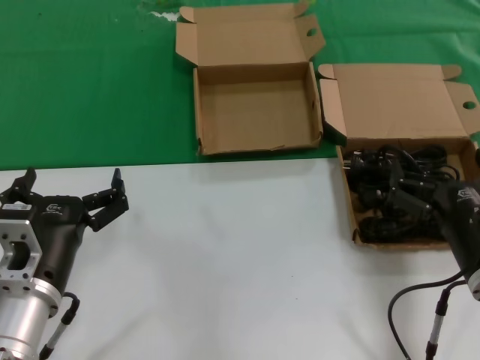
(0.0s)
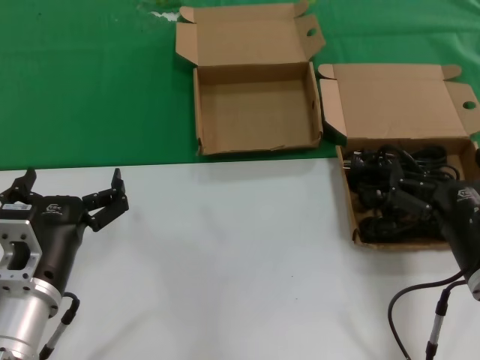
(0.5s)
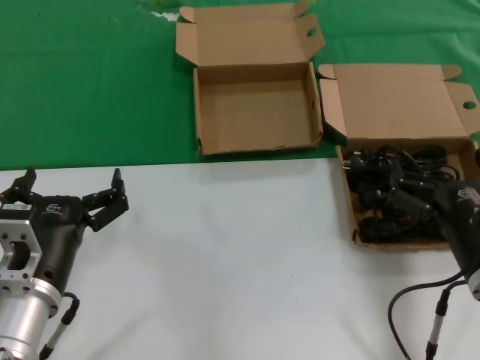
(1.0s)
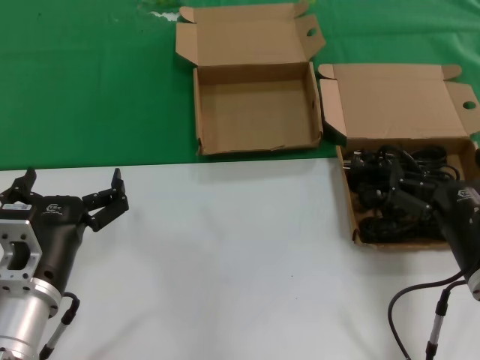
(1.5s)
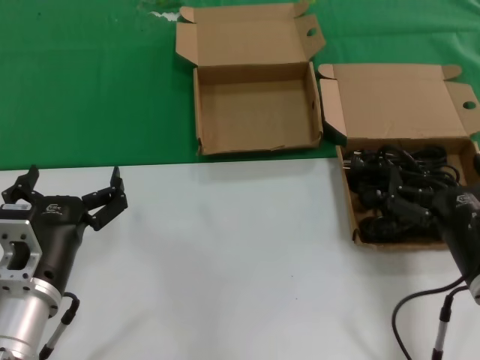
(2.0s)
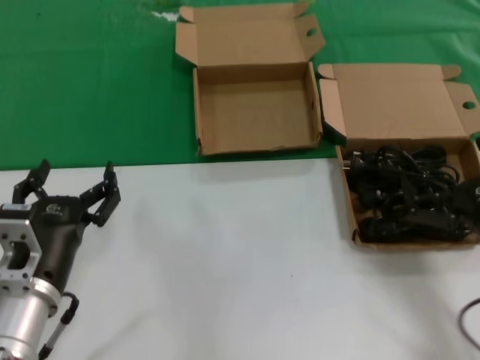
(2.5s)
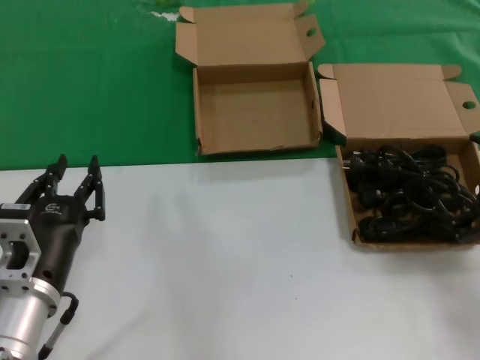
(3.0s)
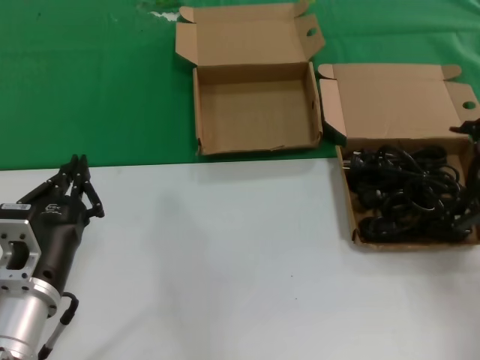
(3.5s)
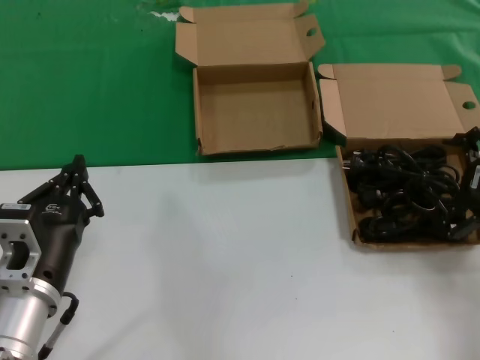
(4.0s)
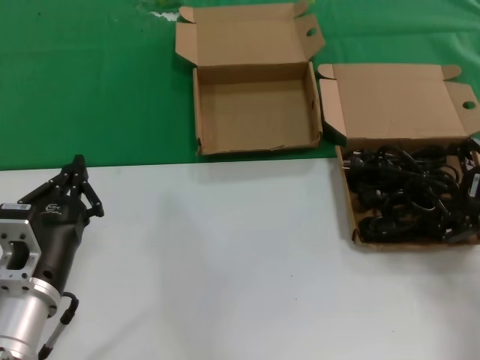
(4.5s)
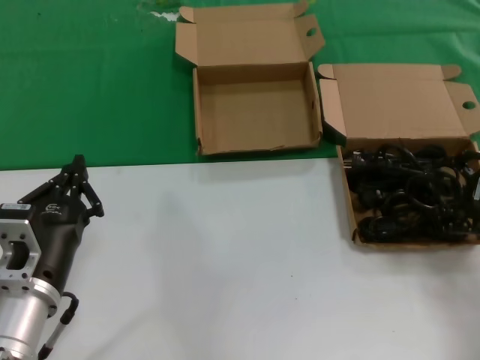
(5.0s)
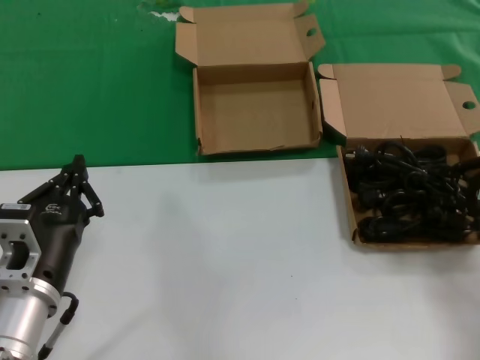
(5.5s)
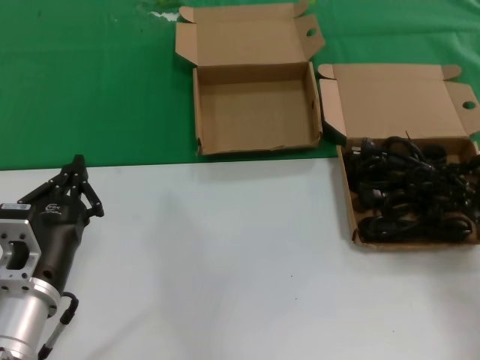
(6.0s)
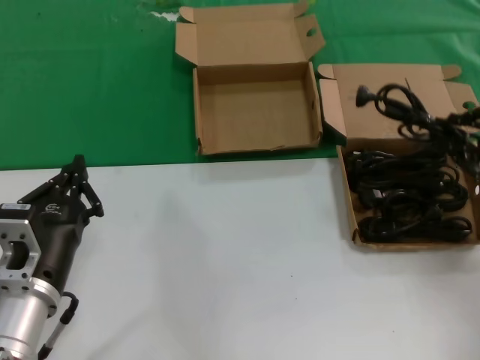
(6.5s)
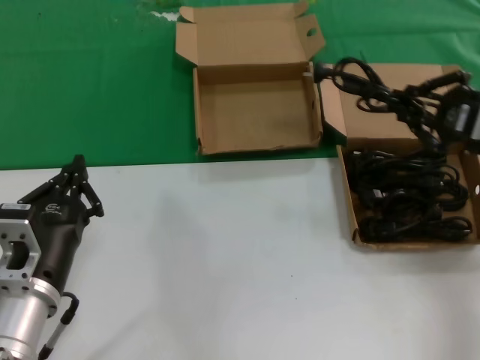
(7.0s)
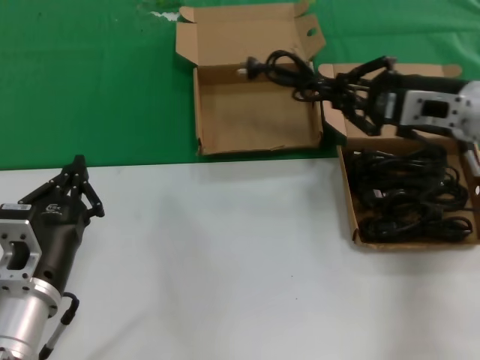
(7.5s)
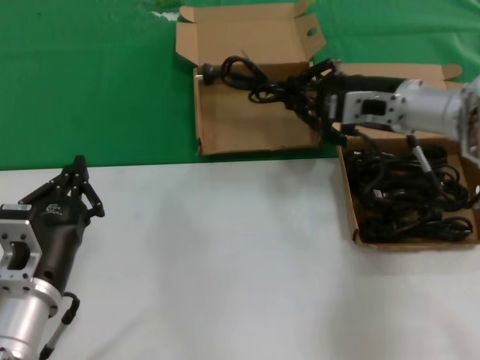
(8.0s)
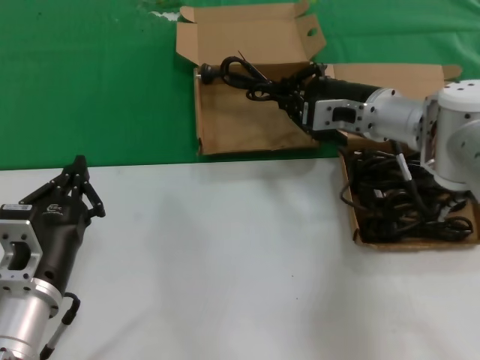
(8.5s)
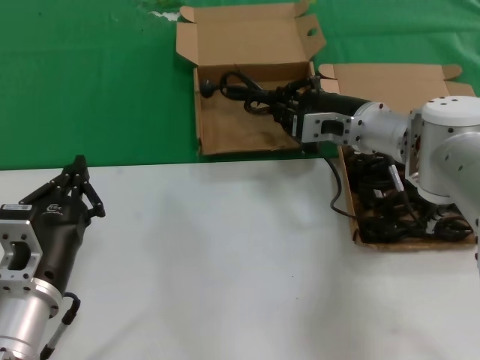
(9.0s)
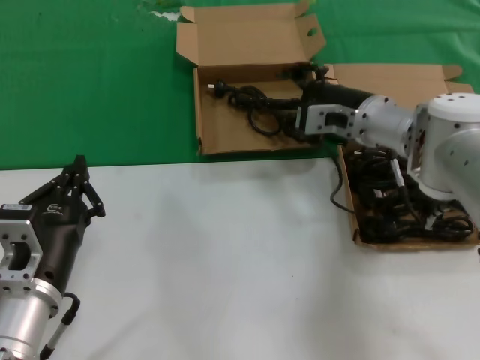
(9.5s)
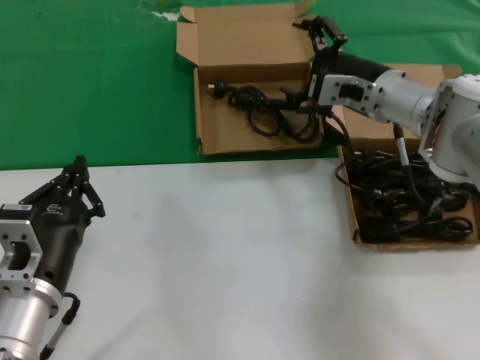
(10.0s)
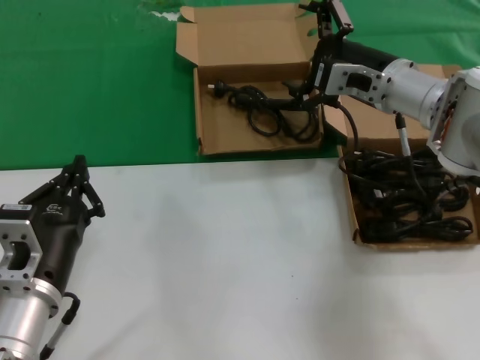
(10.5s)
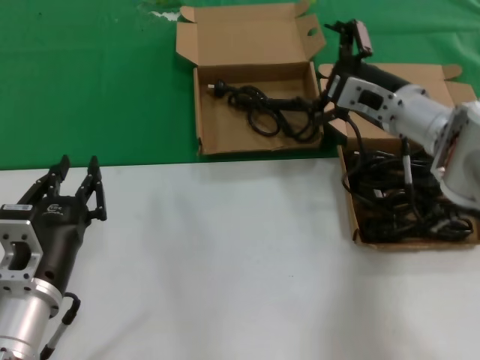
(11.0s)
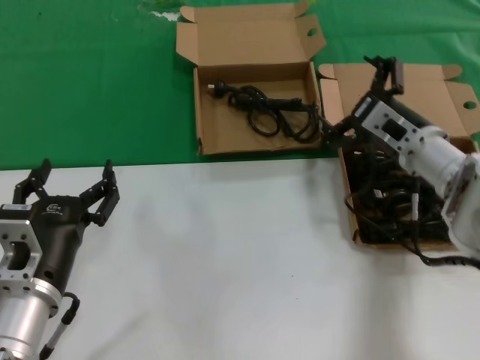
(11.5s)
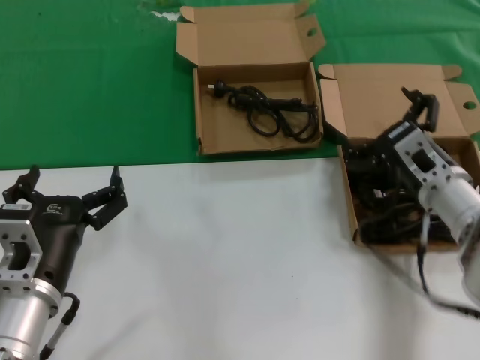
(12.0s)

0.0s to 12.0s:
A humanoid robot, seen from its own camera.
Task of the whole recording: take the parts from the box containing them and put them into an empty box.
Step, 0.0s to 5.5s: Grasp the data cable.
Step, 6.0s to 9.0s: Place the data cable in the another box.
0.0s to 2.0s: Both hands stay put.
2.0s to 4.0s: The right hand goes roughly 20 cm to the right, forward and upward.
4.0s to 6.0s: The hands make only small movements.
6.0s to 8.0s: The right hand moves to the left and forward, about 20 cm.
10.0s to 12.0s: The right hand shifts about 15 cm downward, backward and to the right.

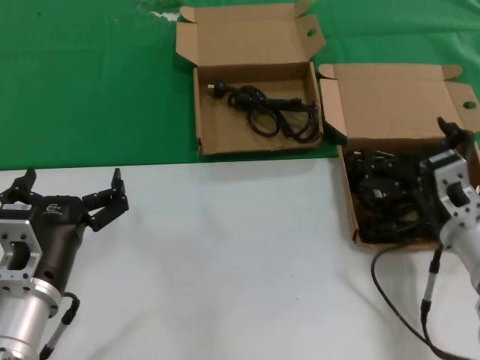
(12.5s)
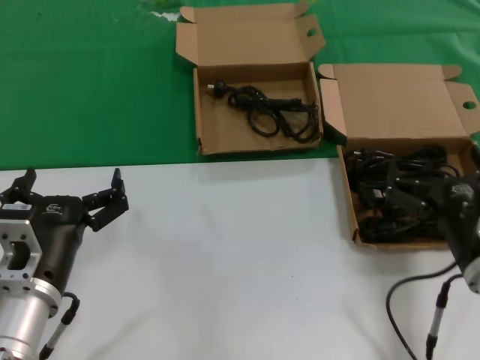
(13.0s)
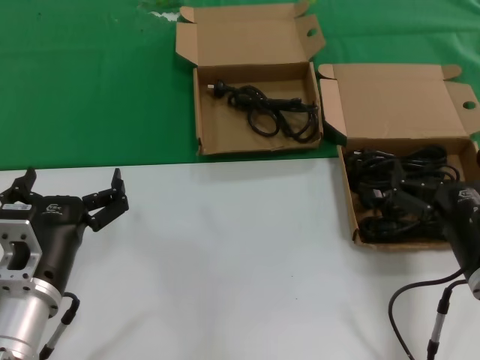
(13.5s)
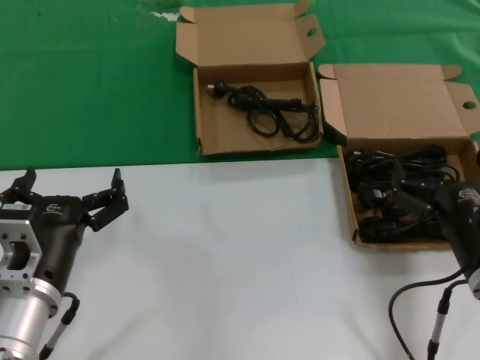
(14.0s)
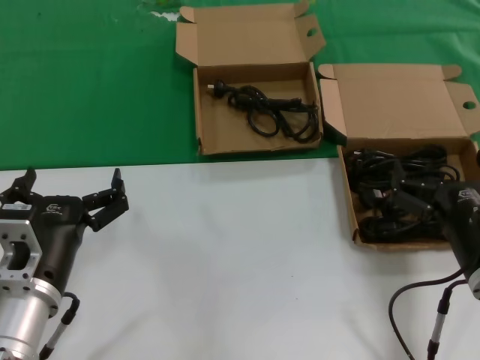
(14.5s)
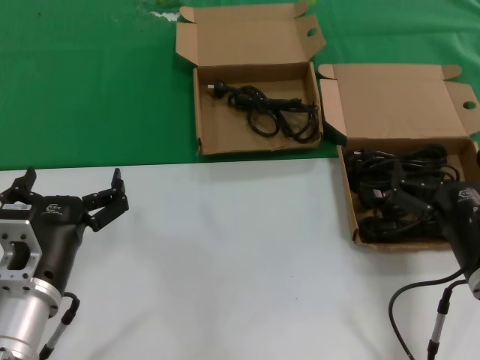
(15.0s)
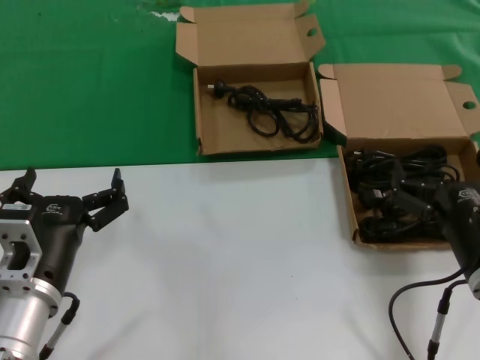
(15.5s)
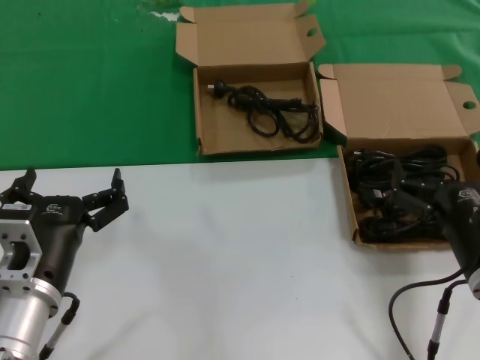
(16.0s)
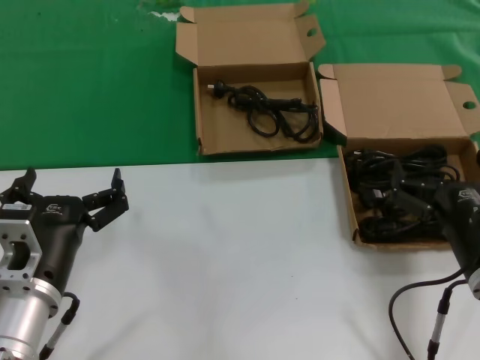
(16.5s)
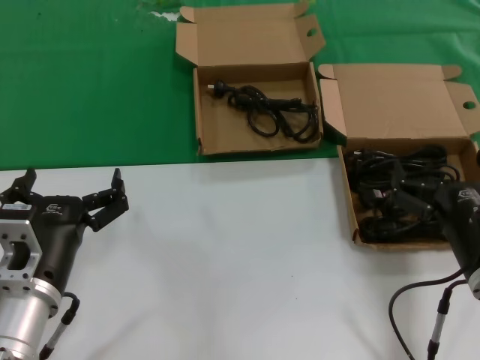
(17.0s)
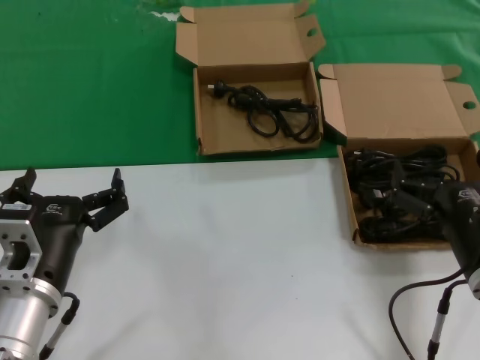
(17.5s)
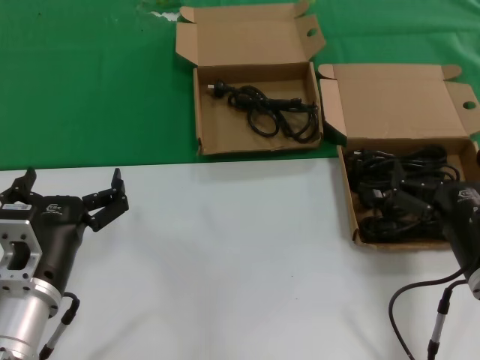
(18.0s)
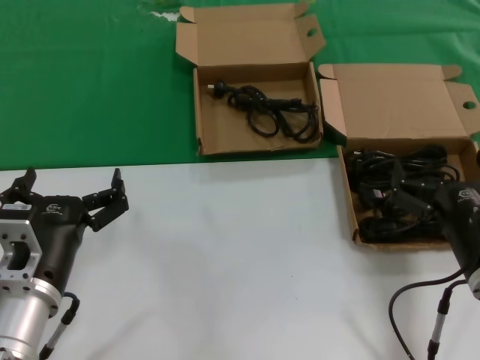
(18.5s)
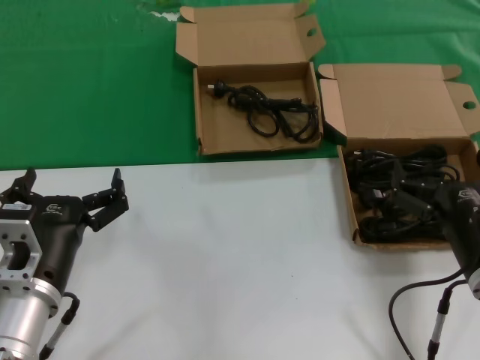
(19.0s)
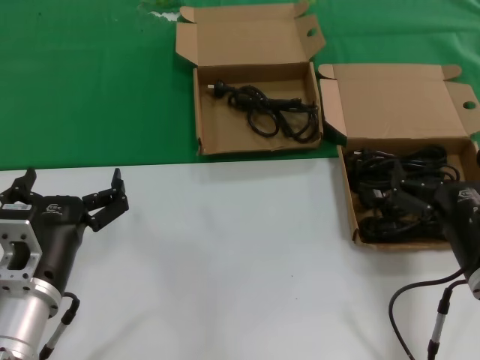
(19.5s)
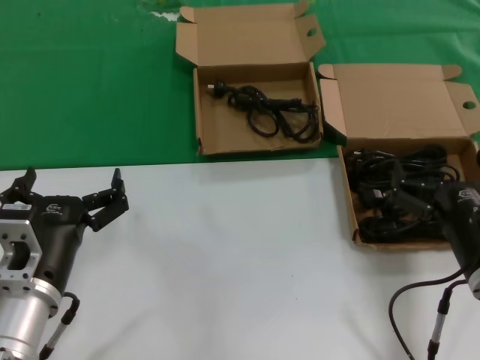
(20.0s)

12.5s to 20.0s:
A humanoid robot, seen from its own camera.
Task of the whole recording: take the parts from the box containing them and put them into an empty box.
12.5s to 14.5s: The right hand is displaced backward by approximately 10 cm.
14.5s to 20.0s: The two hands keep their place.

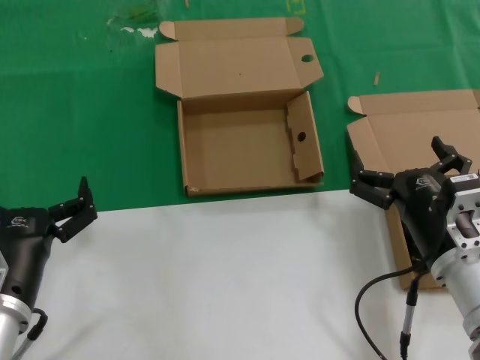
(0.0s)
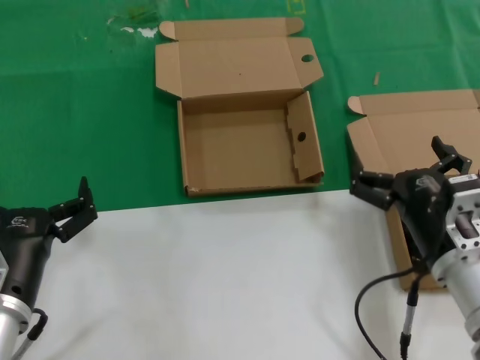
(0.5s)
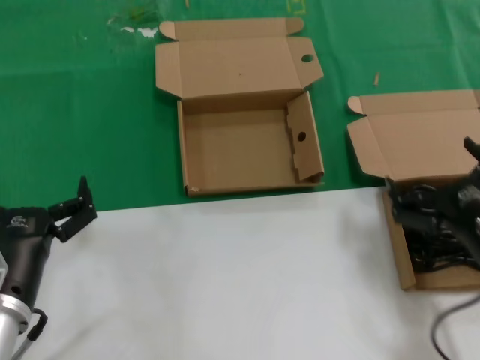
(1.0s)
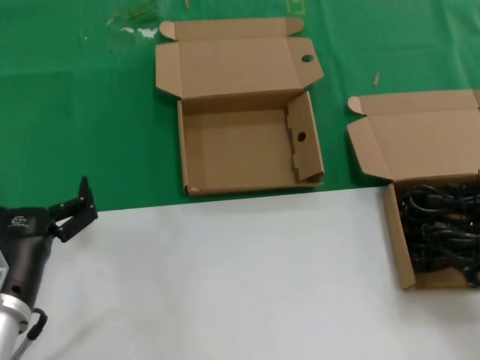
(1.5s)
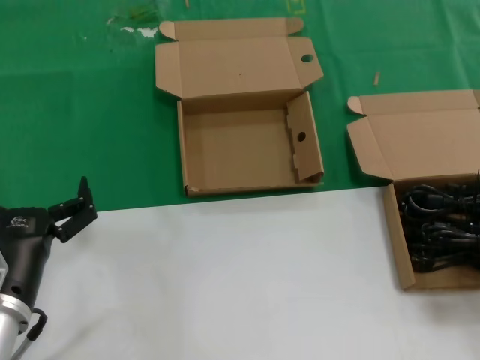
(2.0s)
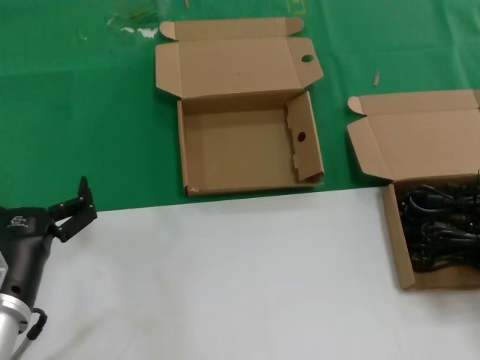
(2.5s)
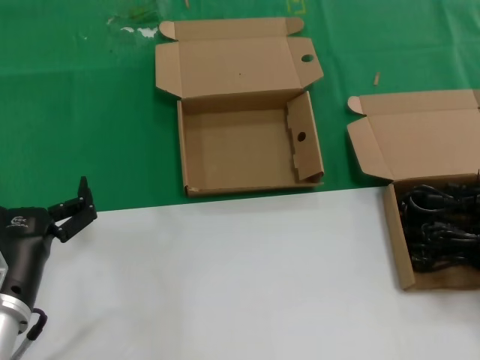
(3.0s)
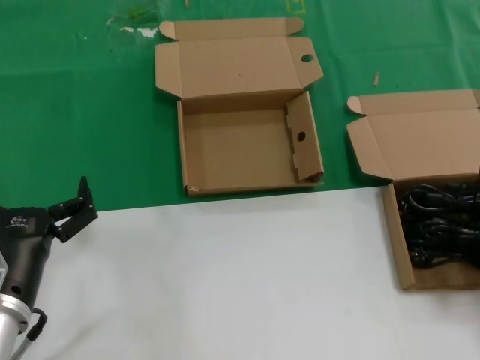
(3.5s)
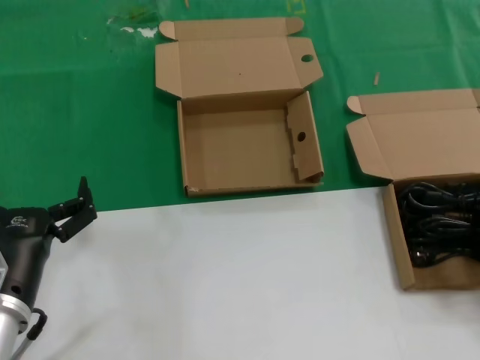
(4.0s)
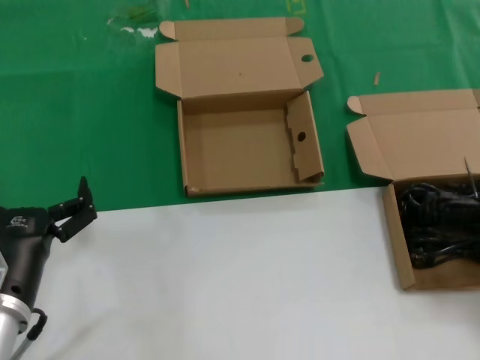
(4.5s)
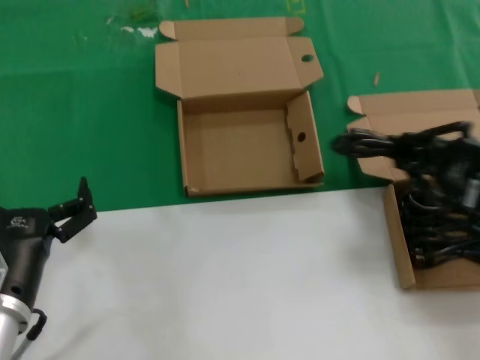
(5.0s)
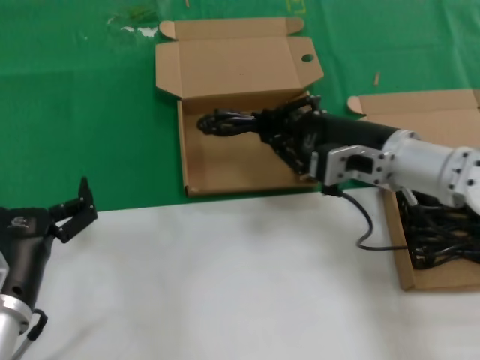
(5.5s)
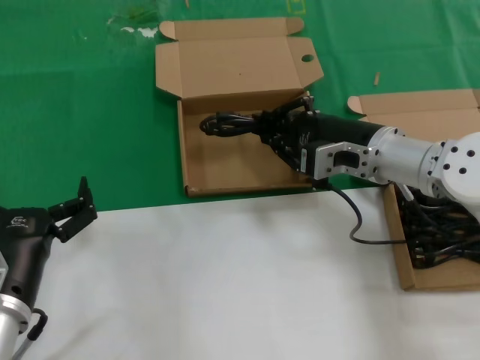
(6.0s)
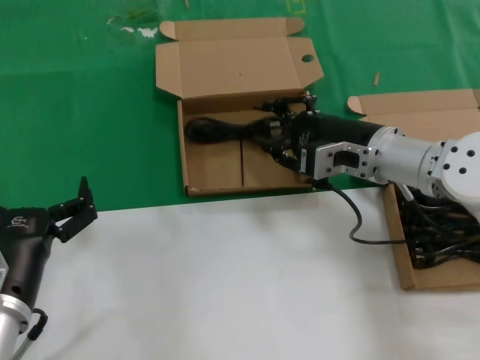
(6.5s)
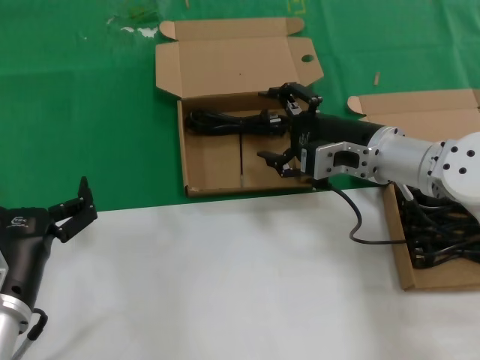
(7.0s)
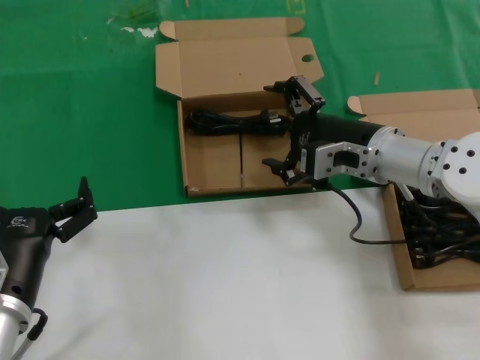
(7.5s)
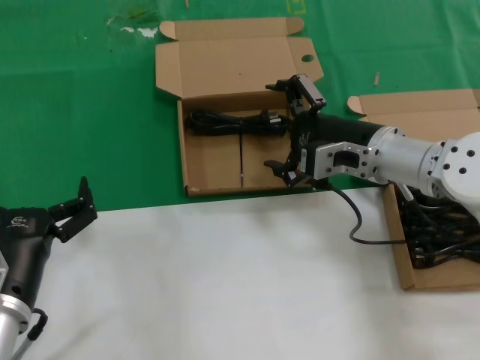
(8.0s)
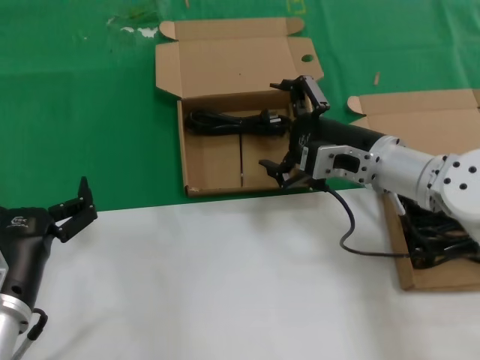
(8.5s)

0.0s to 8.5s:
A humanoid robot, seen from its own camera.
Task of the whole recording: take the parts from the box containing them and put them into an empty box.
Step, 0.0s to 4.0s: Grasp the data cable.
Step, 4.5s to 8.0s: Place the data cable in the another box.
0.0s to 2.0s: The right hand is displaced to the right and upward by roughly 25 cm.
2.0s to 4.0s: The right hand shifts by roughly 5 cm.
4.0s to 6.5s: The right hand heads to the left and forward, covering approximately 30 cm.
6.5s to 8.5s: The hands make only small movements.
